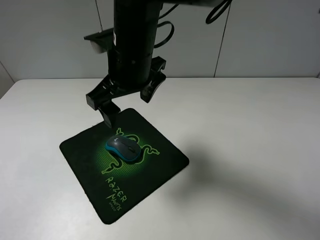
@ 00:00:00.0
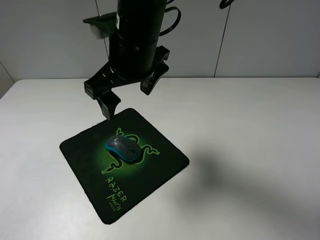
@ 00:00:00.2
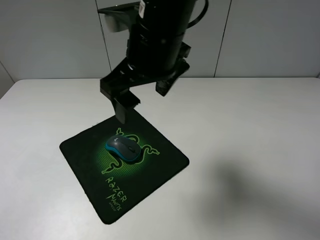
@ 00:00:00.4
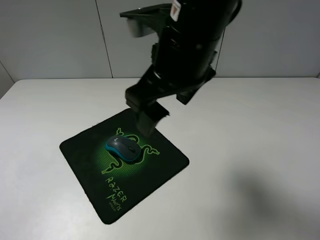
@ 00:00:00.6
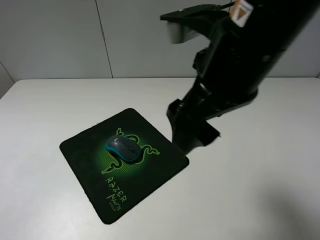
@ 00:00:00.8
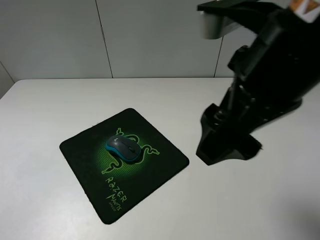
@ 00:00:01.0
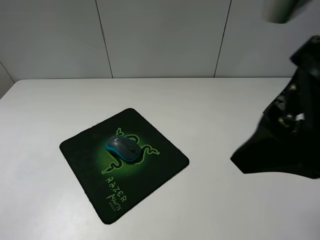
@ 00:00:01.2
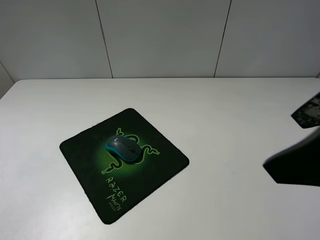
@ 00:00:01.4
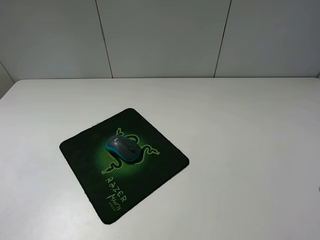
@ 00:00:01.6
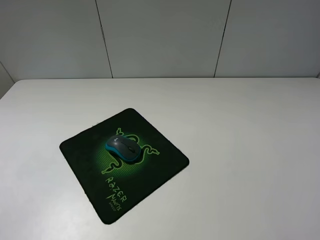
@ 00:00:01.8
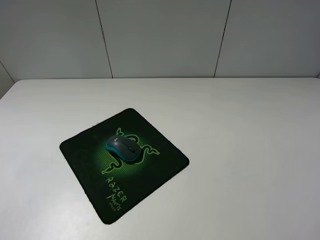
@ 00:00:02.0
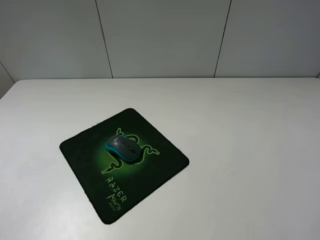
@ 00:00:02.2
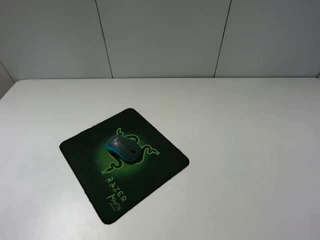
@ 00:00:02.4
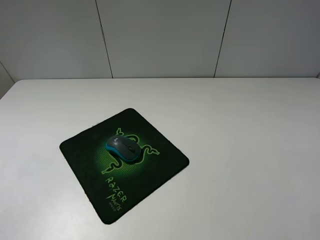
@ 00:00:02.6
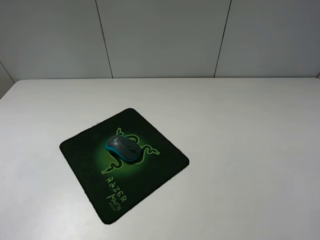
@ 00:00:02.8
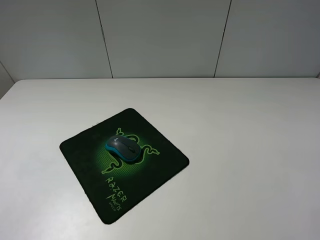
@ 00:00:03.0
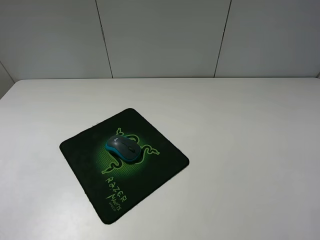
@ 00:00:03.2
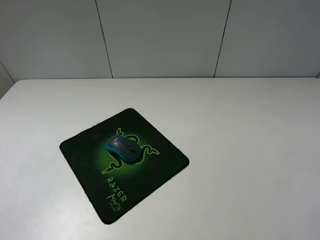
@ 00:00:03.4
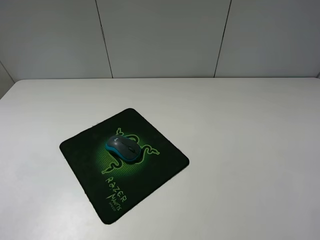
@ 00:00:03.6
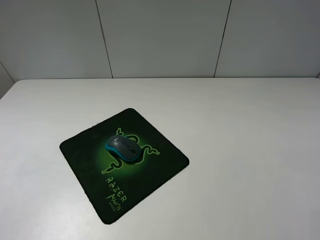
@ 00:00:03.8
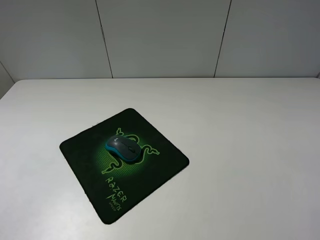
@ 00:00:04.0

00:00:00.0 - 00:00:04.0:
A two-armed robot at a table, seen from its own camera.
00:00:00.0 - 00:00:01.4: The right gripper moves to the right and backward, roughly 30 cm.
00:00:01.4 - 00:00:02.6: The right gripper goes approximately 15 cm to the right, backward and downward.
